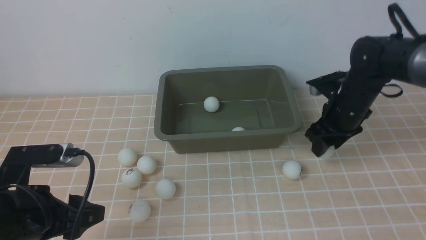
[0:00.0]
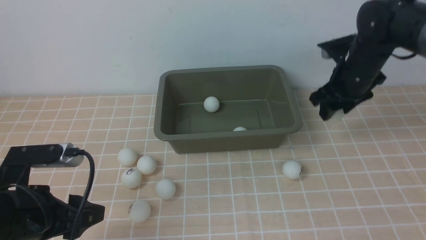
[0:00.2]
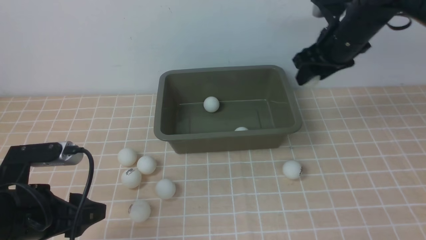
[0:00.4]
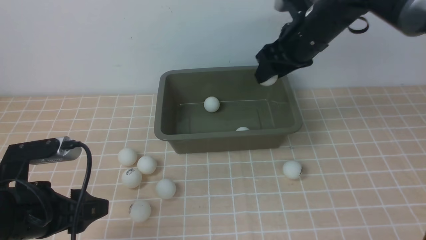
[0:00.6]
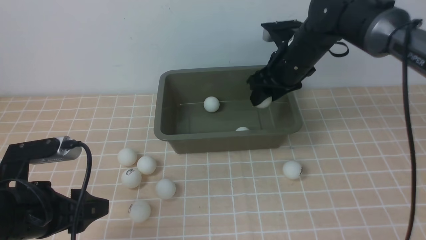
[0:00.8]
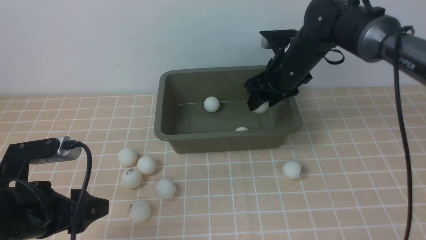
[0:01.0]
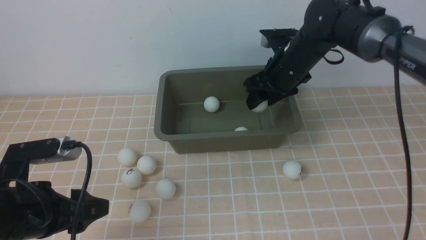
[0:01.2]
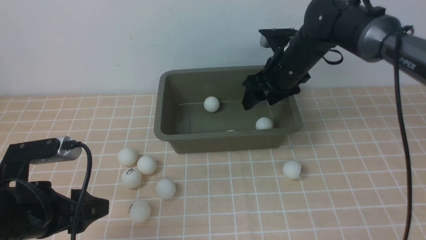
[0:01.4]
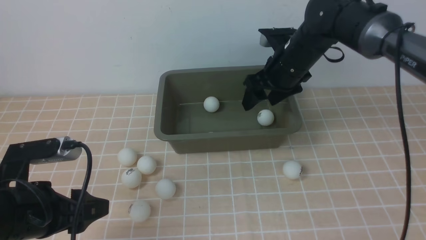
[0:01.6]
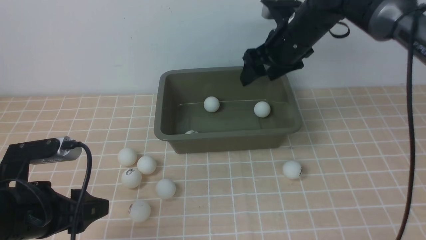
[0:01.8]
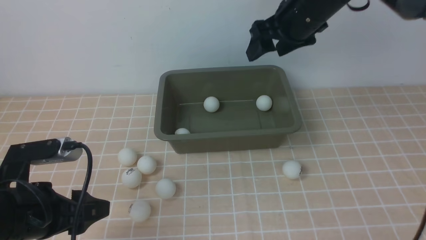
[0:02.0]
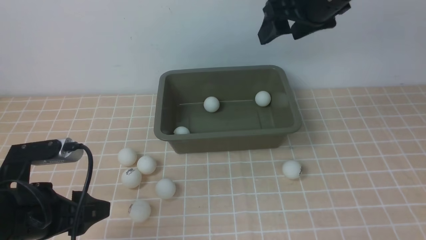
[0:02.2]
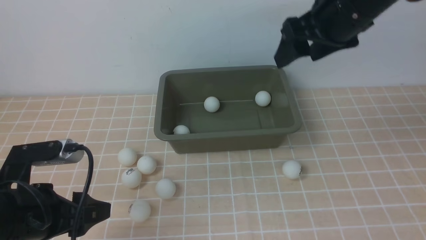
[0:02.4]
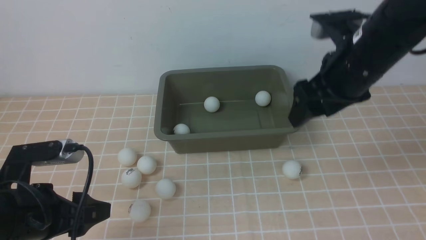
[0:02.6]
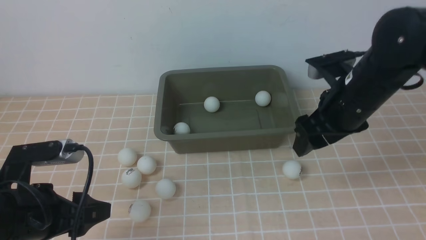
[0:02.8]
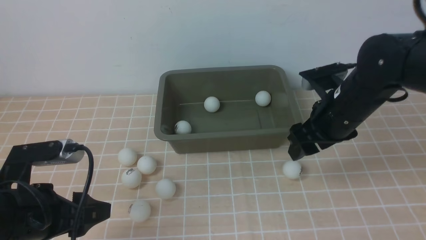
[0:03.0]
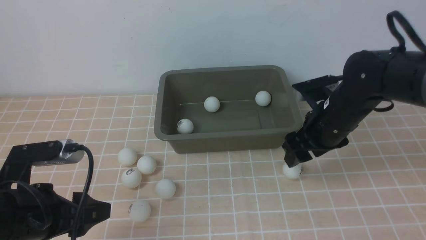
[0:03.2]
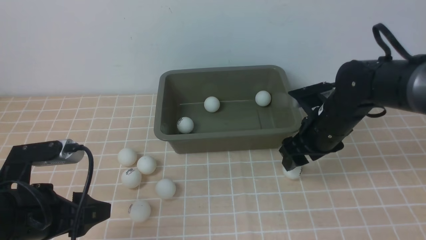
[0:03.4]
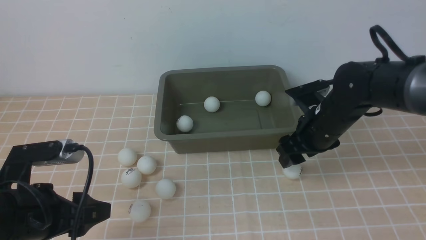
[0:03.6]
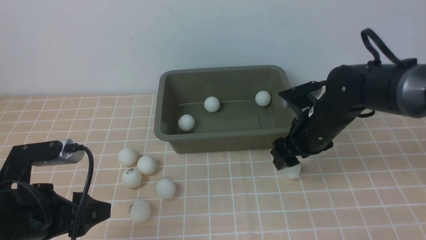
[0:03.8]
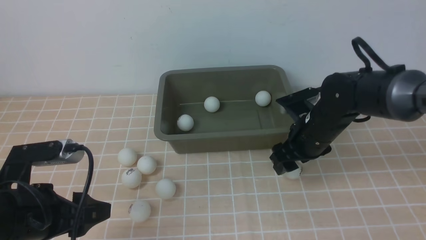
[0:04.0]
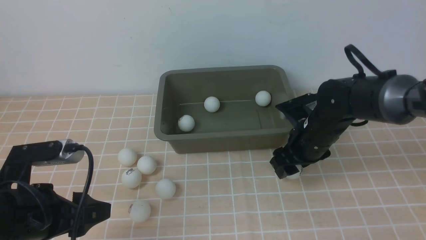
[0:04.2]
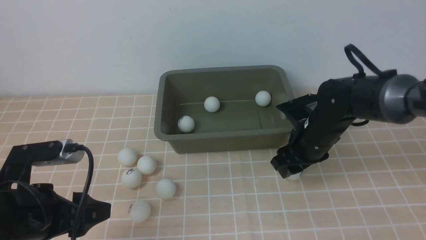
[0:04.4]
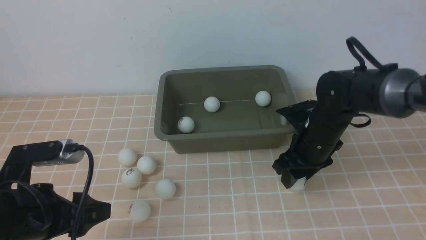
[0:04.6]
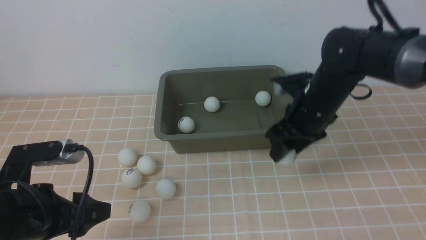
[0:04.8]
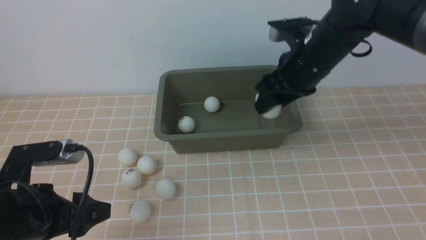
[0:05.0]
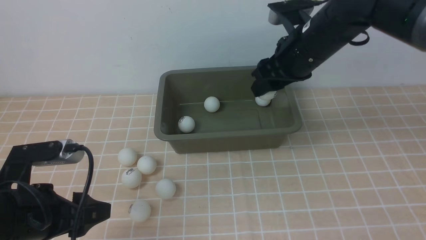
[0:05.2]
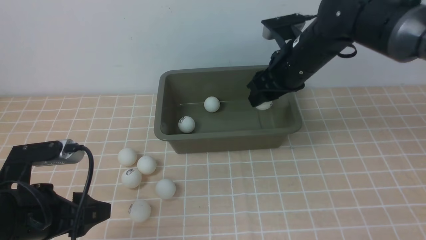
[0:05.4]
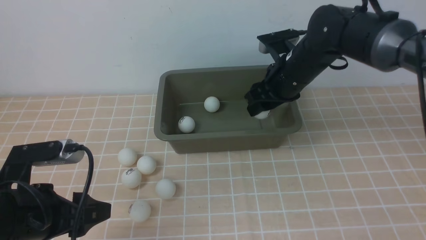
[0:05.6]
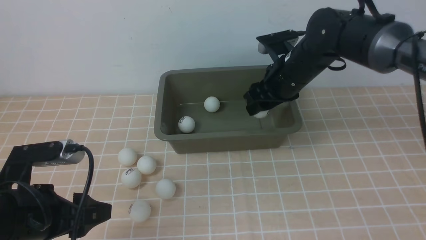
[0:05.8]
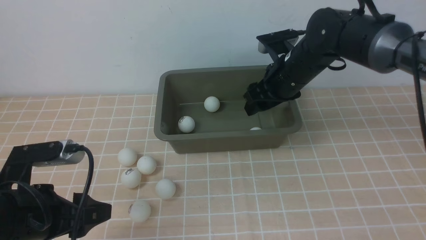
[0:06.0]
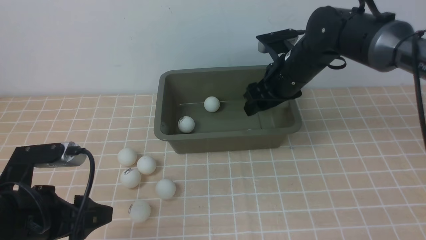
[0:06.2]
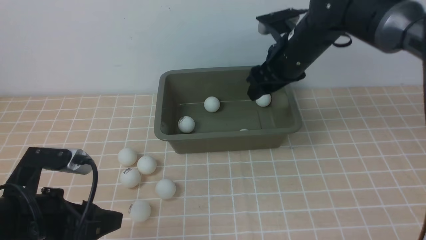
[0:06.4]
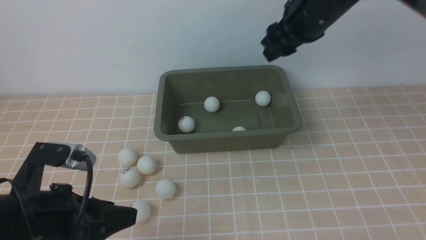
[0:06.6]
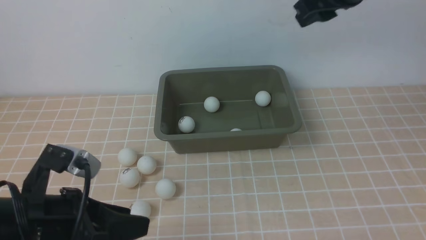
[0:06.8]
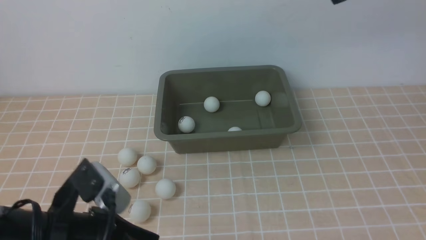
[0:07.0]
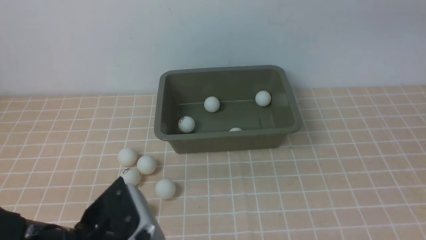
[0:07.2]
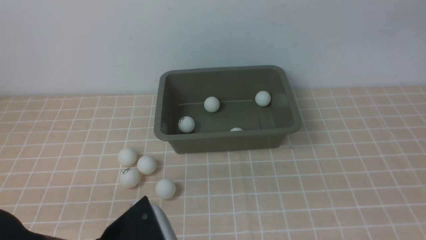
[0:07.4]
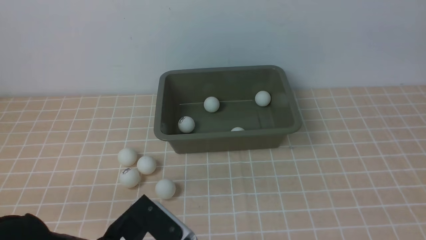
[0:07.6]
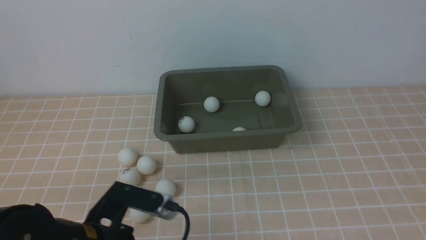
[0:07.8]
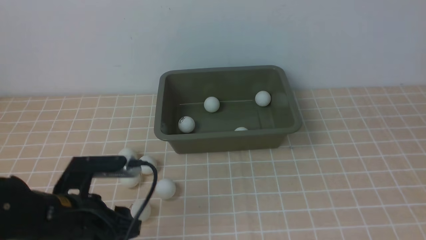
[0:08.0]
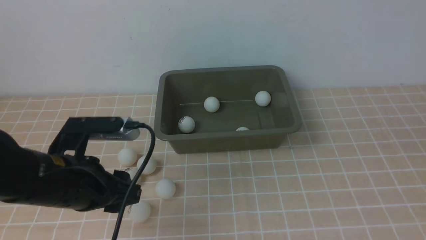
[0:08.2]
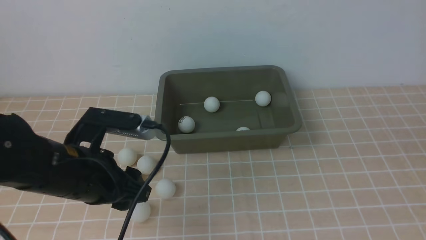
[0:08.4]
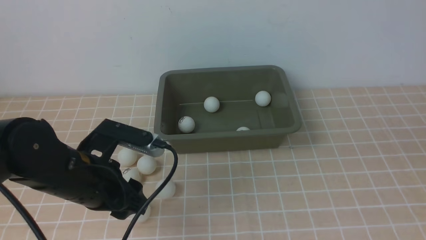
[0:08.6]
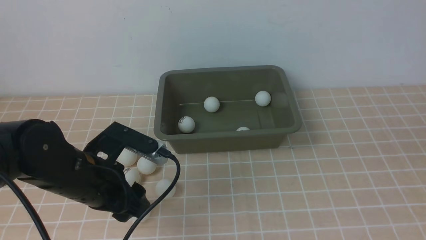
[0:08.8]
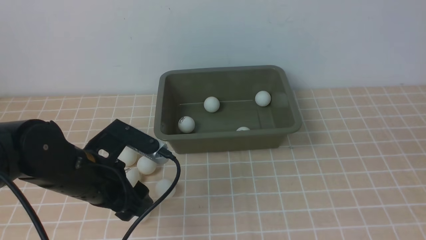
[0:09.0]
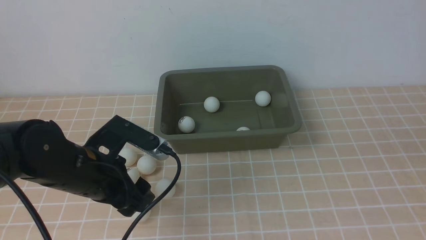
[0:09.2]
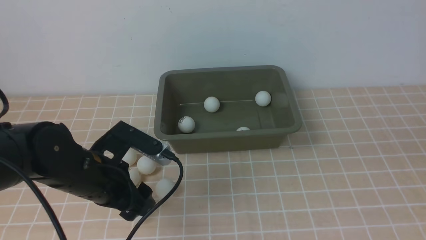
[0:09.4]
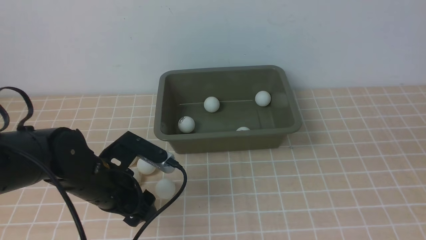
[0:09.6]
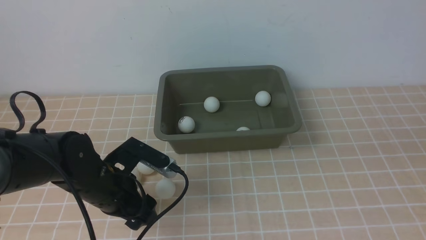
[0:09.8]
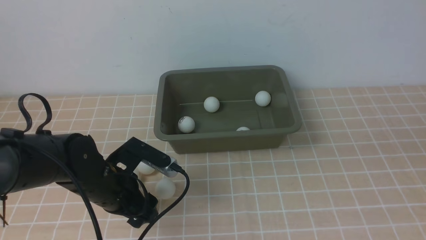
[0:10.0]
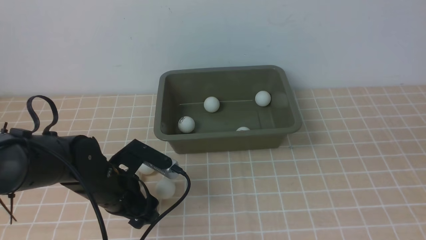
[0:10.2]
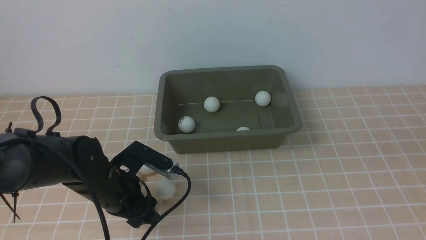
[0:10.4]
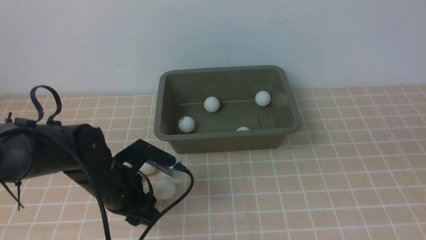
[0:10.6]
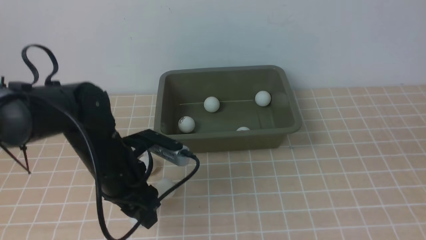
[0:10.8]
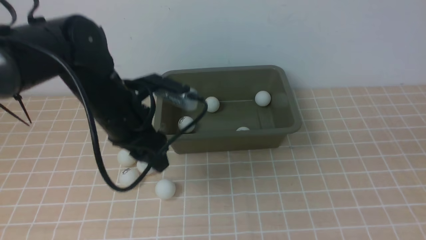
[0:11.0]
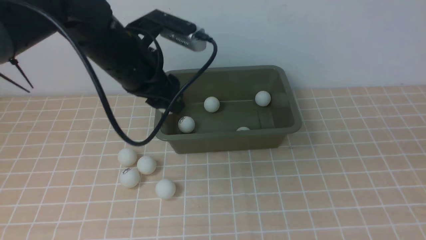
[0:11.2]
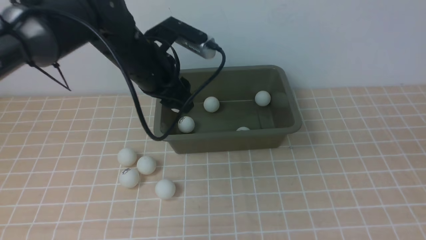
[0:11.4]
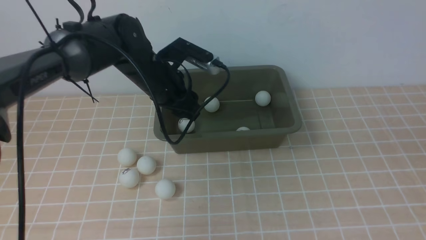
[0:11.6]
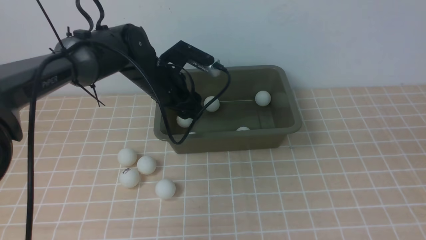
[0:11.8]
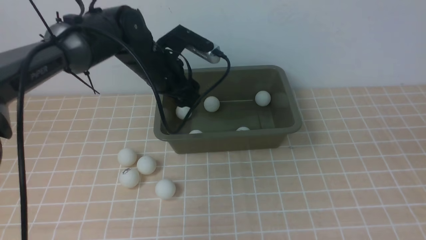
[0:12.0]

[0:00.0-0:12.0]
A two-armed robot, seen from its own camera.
Step, 0.2 to 1.4 s: use the right arm to put the table tennis ball into the box.
Step, 1.8 to 4.8 s: use the right arm to clamp the table tennis ball closest to it.
Step, 5.0 to 6.2 s: use the right arm to put the table tennis ball into the box.
Step, 6.4 to 10.6 s: use the left arm to clamp the table tennis ball closest to it.
0.0 to 1.6 s: The right gripper goes some 10 cm to the left and upward.
1.6 to 3.0 s: The right gripper travels backward and to the right by about 15 cm, and travels upward and back again, approximately 10 cm each way.
3.0 to 4.4 s: The right gripper moves downward, roughly 10 cm.
4.4 to 6.0 s: The right gripper is displaced upward and forward by some 10 cm.
6.0 to 7.6 s: The left gripper goes approximately 10 cm to the right. Meanwhile the right gripper shifts roughly 35 cm upward, backward and to the right, and closes up.
7.6 to 9.0 s: The left gripper shifts about 10 cm forward; the right gripper is displaced backward and downward by approximately 20 cm.
9.0 to 10.4 s: The left gripper shifts roughly 5 cm downward.
10.4 to 12.0 s: The left gripper goes about 20 cm forward and upward.

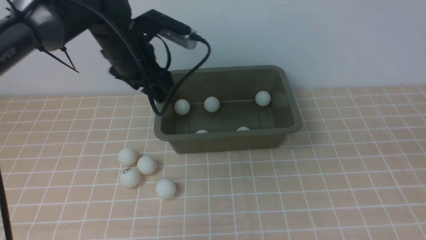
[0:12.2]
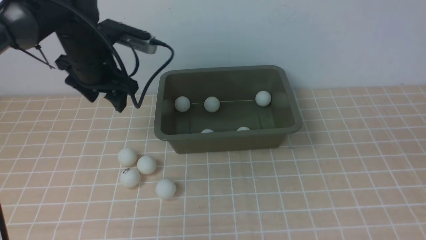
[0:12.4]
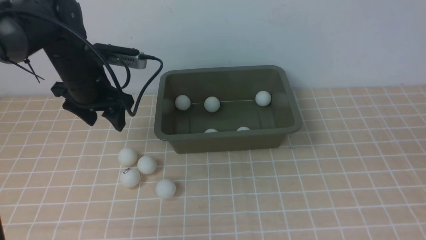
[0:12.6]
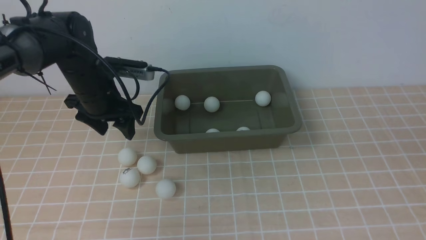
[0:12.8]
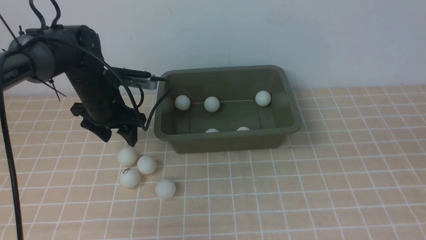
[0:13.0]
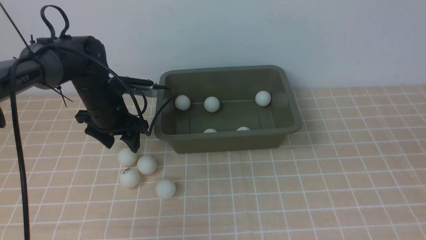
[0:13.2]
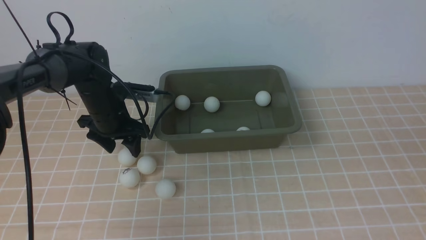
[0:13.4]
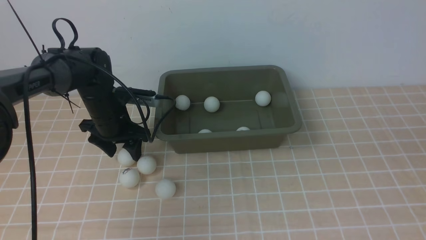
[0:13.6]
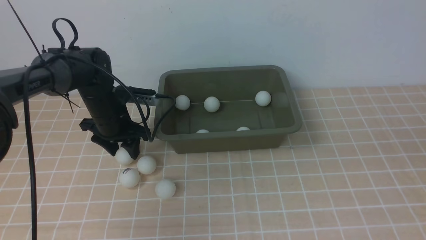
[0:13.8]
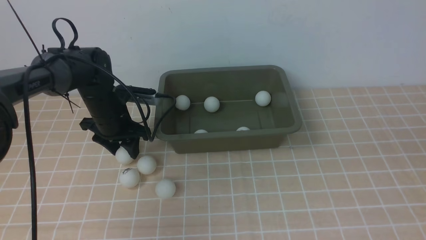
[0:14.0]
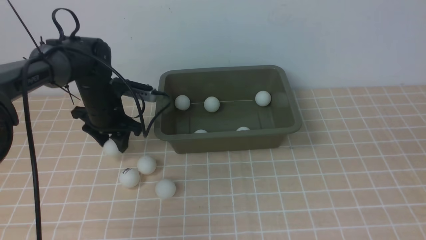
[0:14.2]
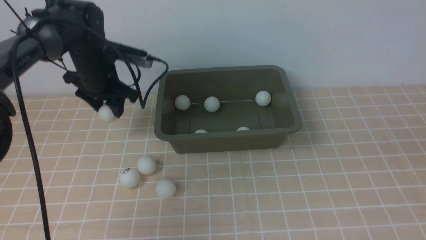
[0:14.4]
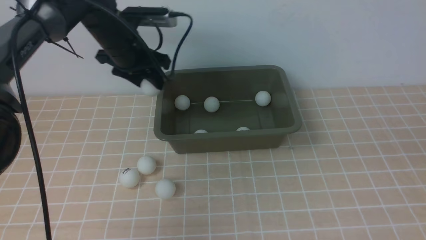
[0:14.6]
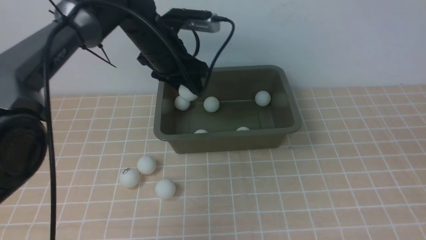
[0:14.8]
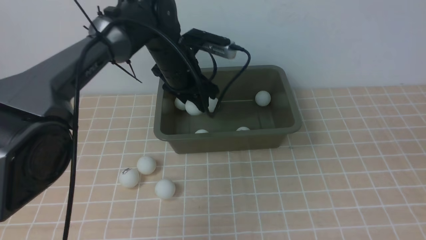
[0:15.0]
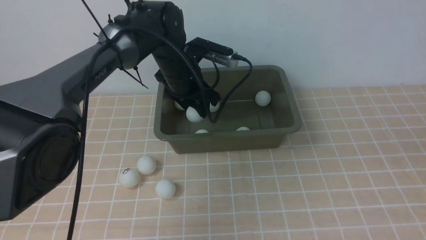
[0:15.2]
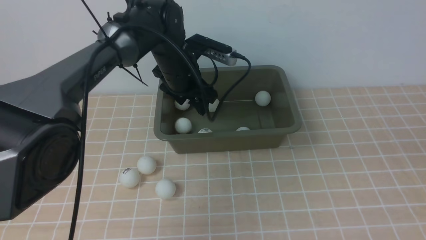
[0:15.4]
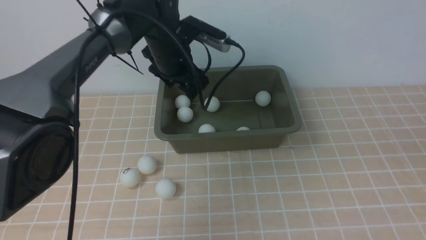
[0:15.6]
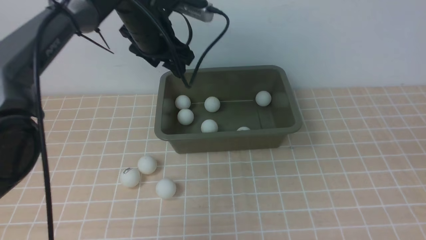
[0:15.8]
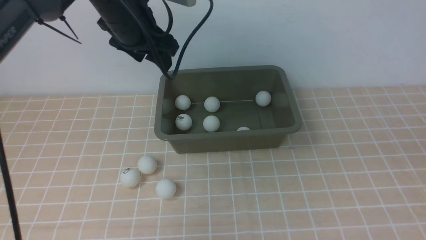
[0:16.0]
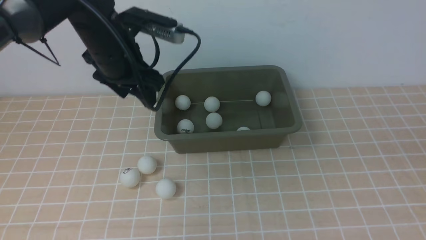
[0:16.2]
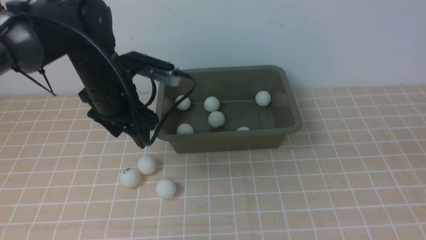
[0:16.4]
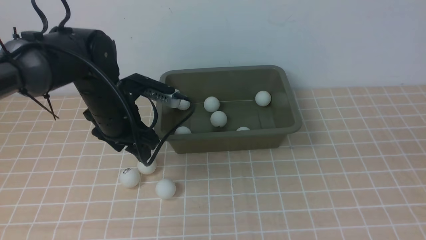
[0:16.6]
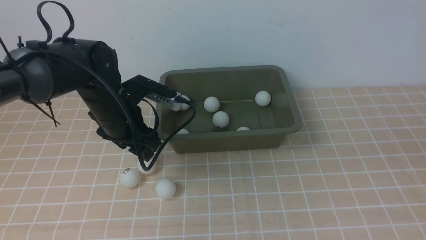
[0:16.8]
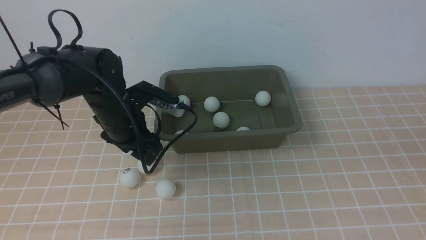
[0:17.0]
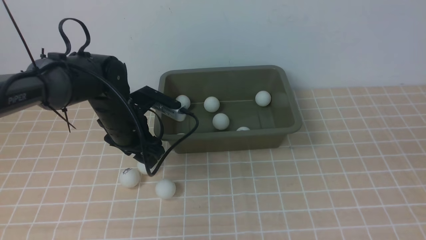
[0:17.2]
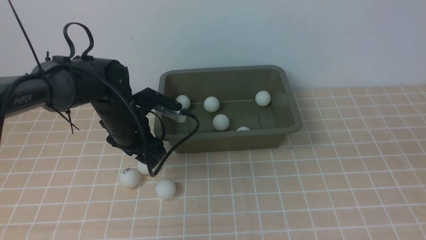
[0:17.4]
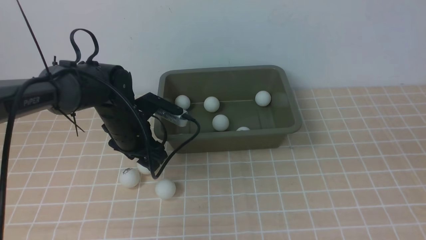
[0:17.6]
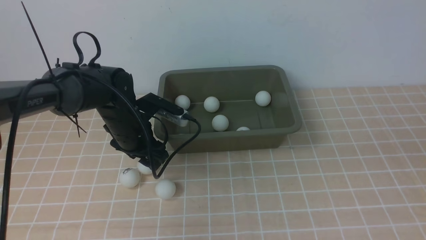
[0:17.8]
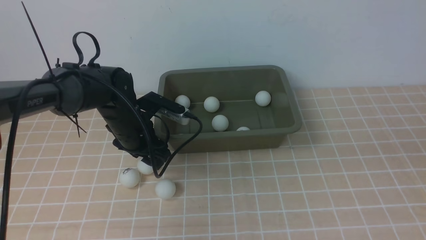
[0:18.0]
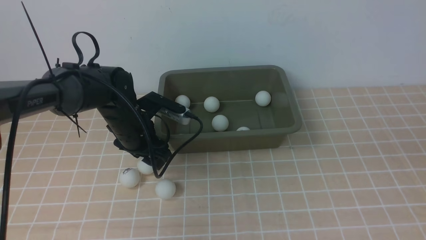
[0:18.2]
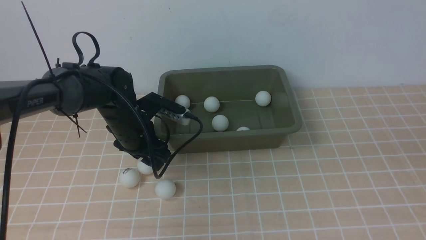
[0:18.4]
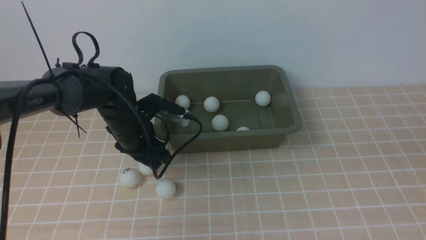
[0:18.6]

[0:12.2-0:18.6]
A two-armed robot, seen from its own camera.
Step, 12.4 to 14.0 s: use the left arm to clamp the table tennis ball closest to it.
Step, 14.2 to 15.4 s: use the left arm to put the table tennis ball into the box.
12.2 to 13.8 s: The left gripper heads downward and to the left, covering approximately 15 cm.
13.8 to 15.4 s: The left gripper moves to the right and upward, approximately 15 cm.
15.4 to 17.0 s: The left gripper moves backward and to the left, approximately 15 cm, and travels upward and back again, about 10 cm each way.
17.0 to 18.6 s: The grippers make only small movements.
